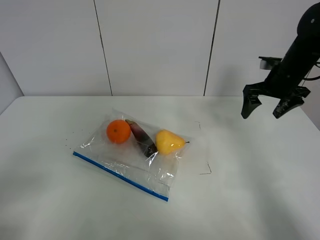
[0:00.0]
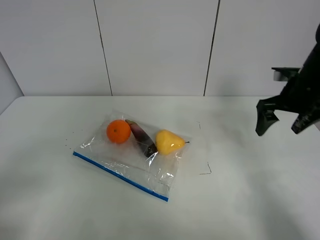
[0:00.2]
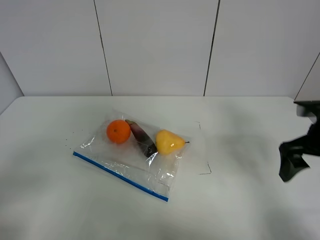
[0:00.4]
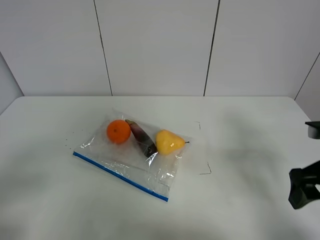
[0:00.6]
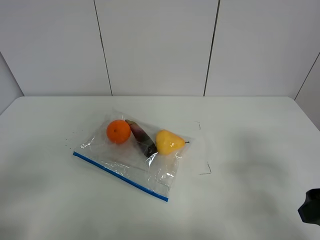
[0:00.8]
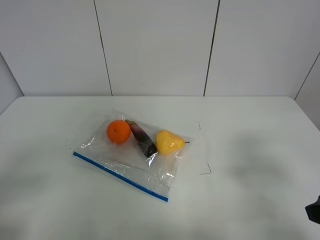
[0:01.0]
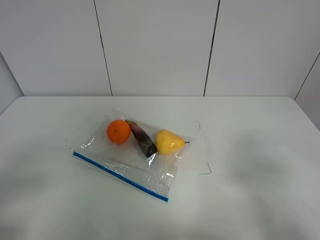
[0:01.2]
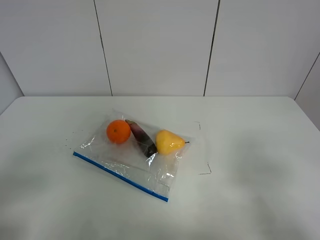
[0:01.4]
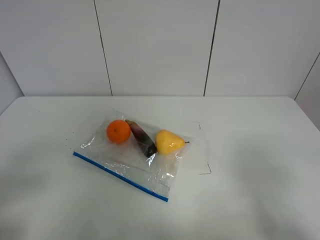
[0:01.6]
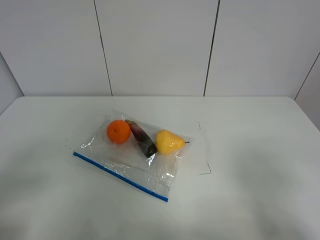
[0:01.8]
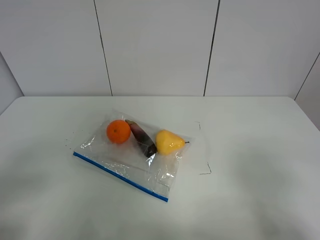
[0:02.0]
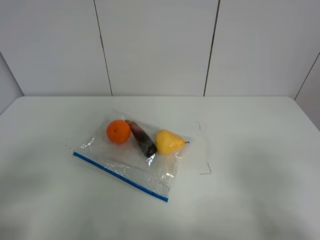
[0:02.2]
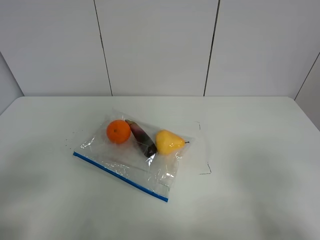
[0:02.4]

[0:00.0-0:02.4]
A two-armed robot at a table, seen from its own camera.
0:00.0 to 0:01.2: The right gripper travels backward by roughly 35 cm.
